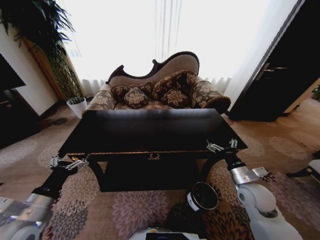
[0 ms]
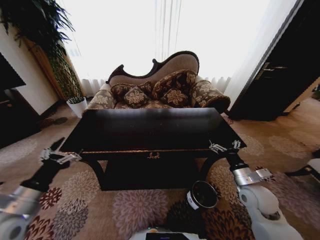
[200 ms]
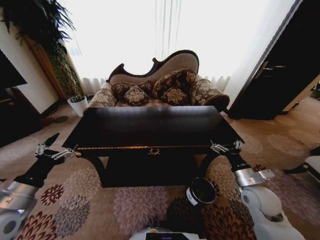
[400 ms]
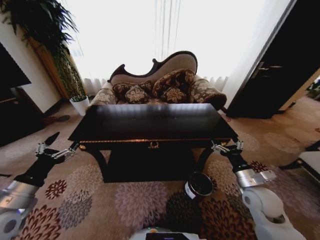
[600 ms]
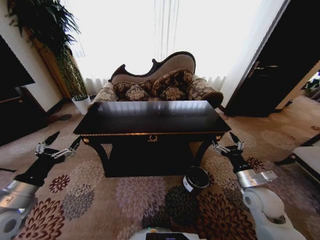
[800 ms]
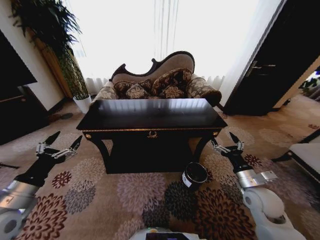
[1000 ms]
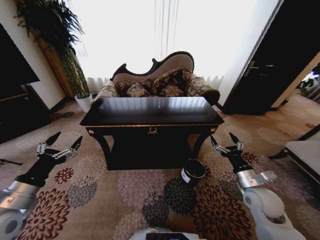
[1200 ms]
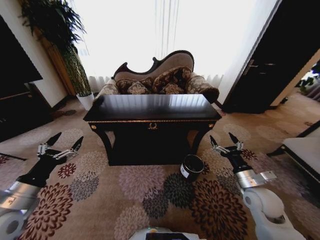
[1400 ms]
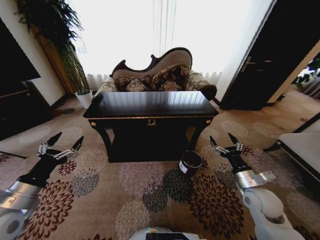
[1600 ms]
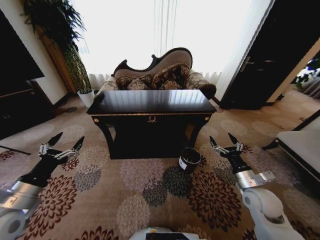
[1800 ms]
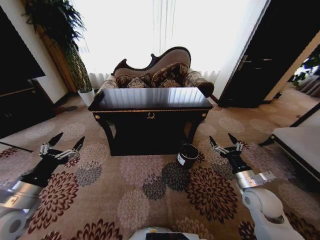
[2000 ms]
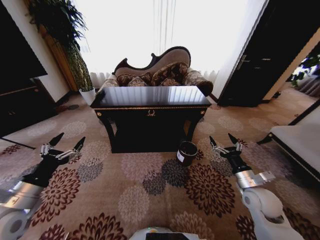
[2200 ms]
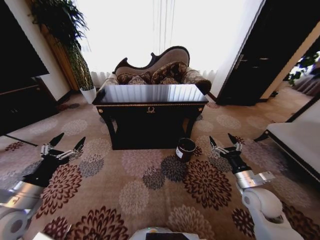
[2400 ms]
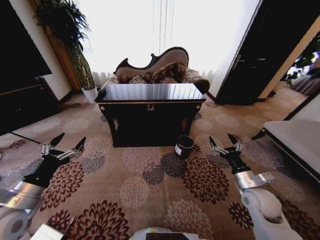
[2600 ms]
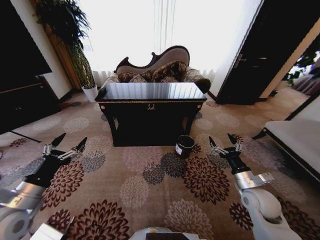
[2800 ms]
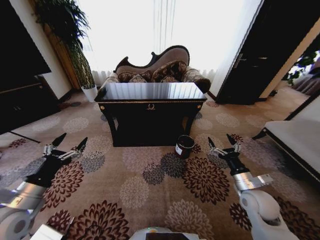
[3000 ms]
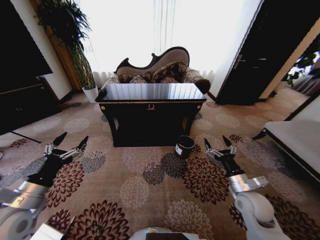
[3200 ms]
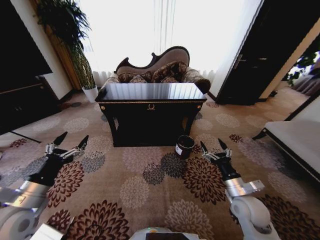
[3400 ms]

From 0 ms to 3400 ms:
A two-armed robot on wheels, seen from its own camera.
Task of the whole recording: Move to the front of the table and place the trash on the table into the trash bin.
From 0 ms to 1600 ms: The left gripper moves roughly 5 cm.
From 1600 ms to 3400 ms: The right gripper moves approximately 5 cm.

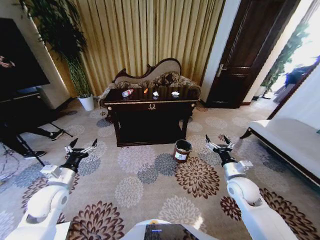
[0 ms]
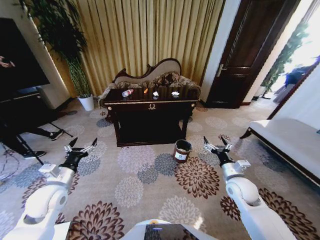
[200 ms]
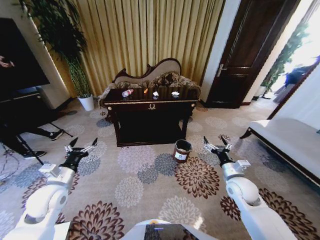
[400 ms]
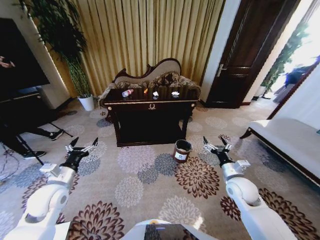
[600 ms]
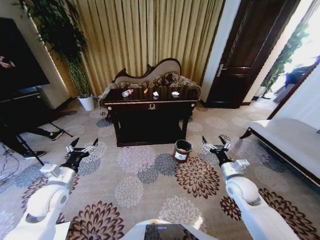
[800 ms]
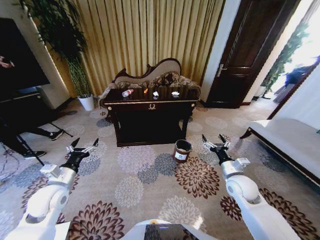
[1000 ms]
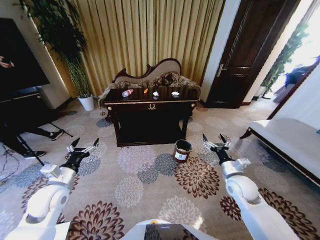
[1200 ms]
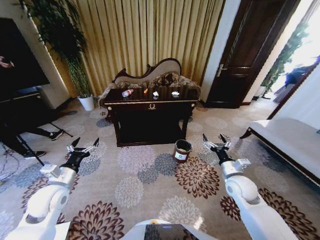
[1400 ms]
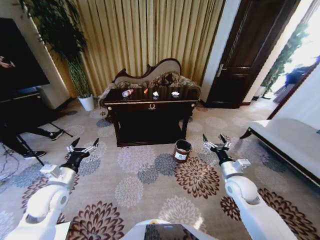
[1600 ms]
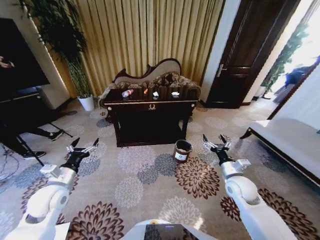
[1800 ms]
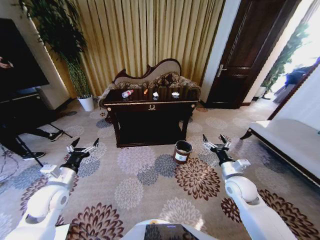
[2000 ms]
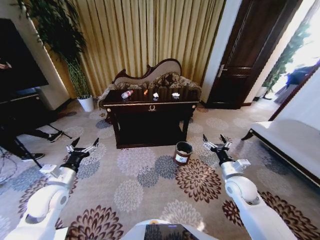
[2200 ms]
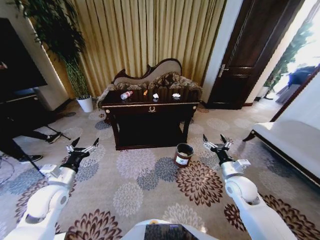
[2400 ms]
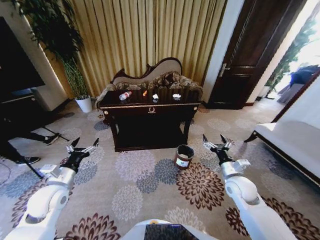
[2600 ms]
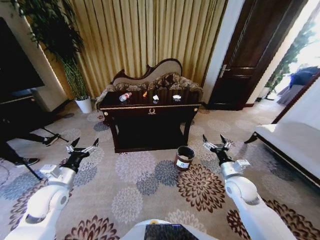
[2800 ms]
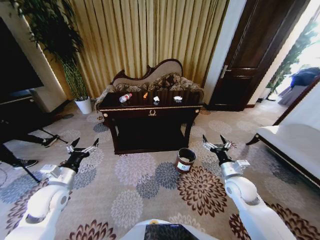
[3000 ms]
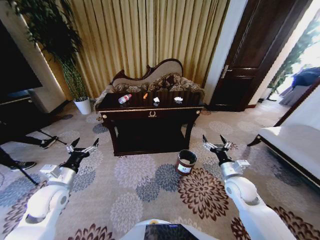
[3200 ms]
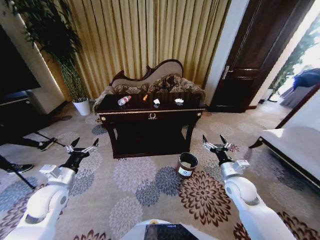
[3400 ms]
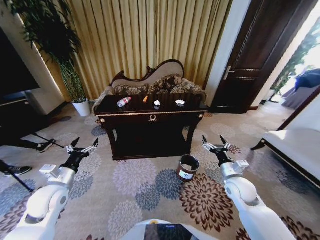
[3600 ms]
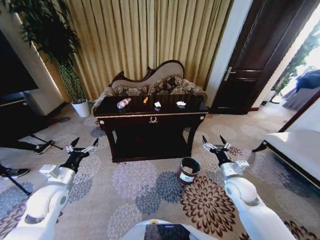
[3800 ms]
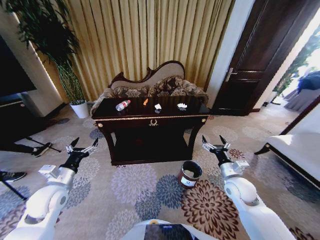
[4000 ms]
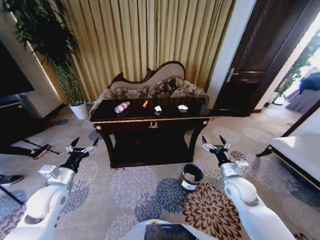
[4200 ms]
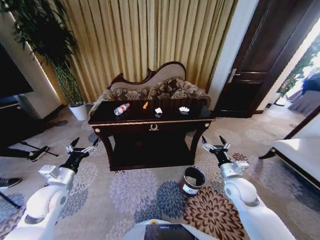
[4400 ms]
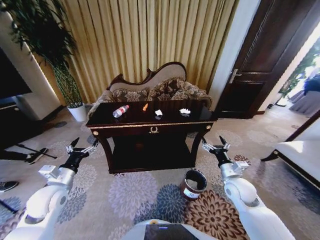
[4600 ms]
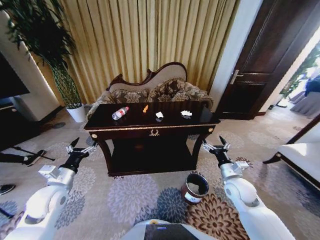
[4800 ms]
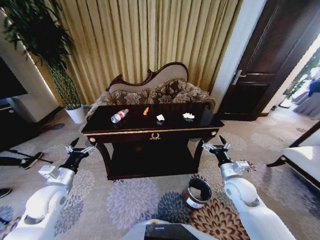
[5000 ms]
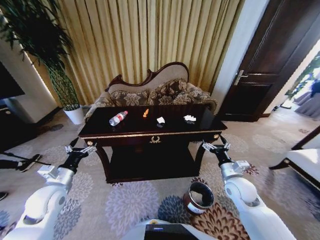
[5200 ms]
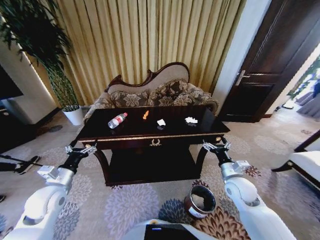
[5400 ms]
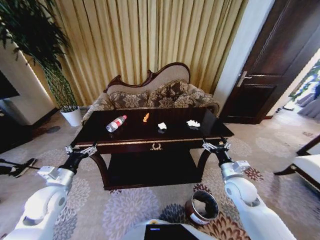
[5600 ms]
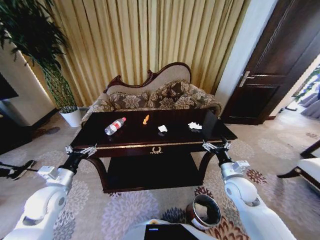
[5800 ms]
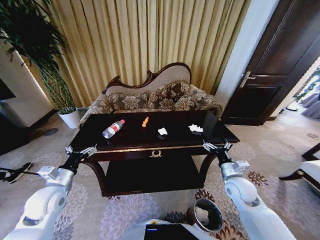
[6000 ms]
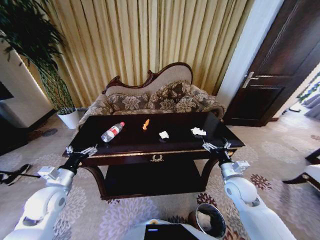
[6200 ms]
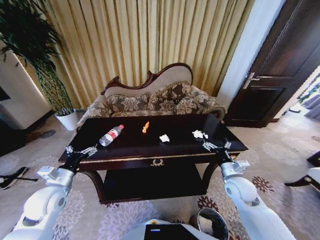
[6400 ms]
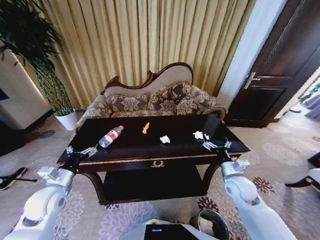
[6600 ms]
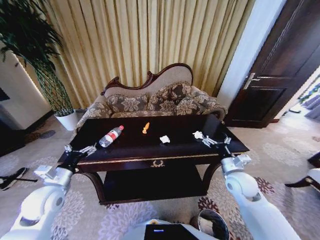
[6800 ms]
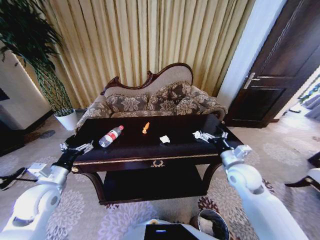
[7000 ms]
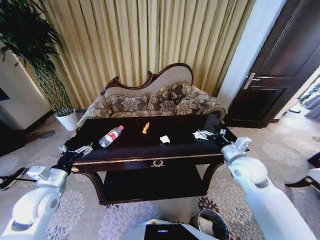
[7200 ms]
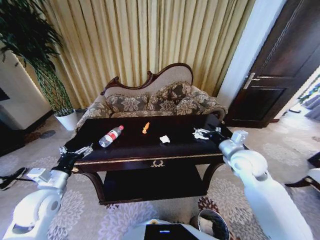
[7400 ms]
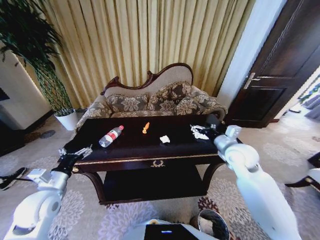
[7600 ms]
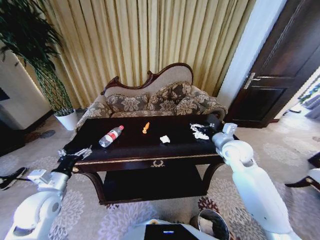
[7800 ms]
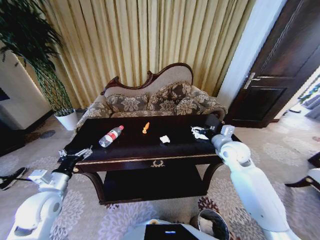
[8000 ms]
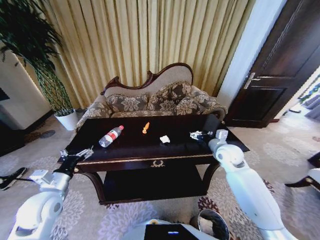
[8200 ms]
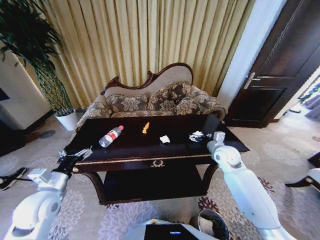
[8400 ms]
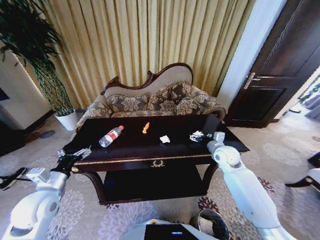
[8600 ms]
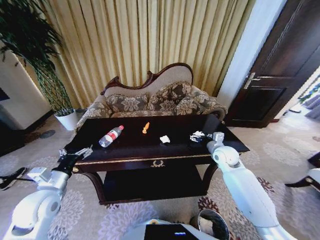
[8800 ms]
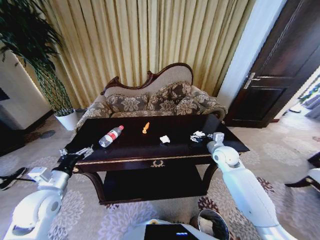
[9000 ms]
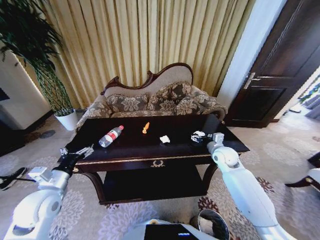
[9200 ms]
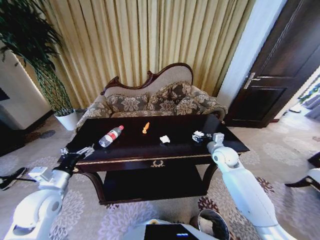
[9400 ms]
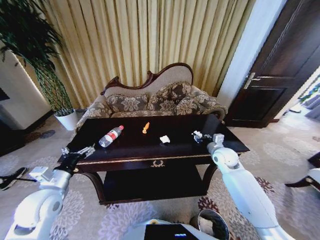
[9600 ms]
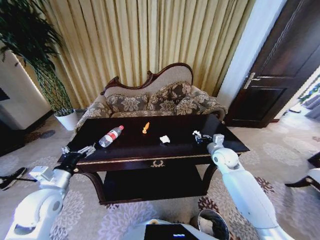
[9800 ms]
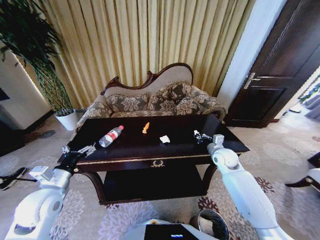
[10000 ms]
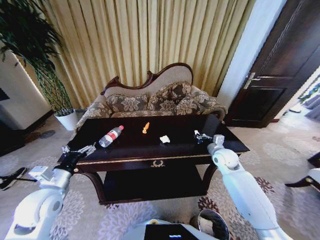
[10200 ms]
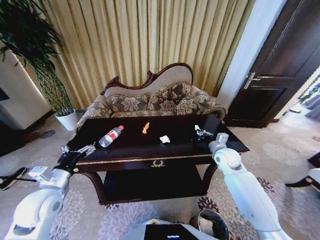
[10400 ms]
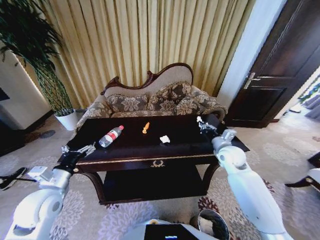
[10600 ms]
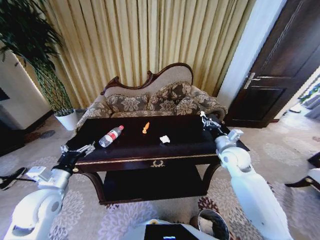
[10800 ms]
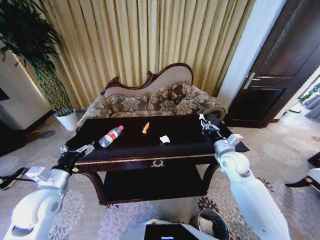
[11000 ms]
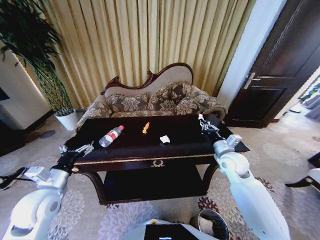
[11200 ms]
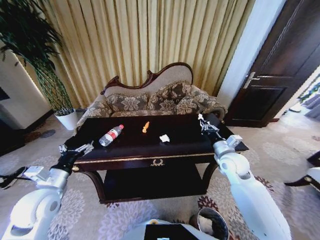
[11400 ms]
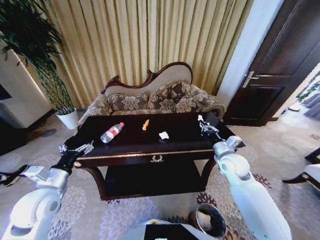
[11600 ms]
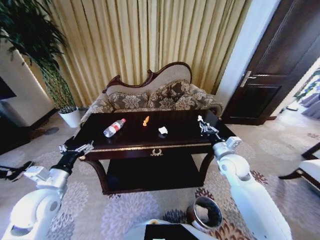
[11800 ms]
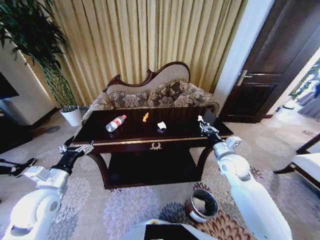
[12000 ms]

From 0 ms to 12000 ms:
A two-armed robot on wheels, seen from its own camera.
Task of the whole recording: Move to the front of the table and place the trash on the table into the trash bin.
From 6000 ms to 7600 ms: The right gripper moves upward and forward, about 15 cm.
From 7600 ms to 9000 ms: The right gripper is displaced downward and forward by some 10 cm.
From 9000 ms to 10400 ms: The right gripper closes up.
From 10400 ms to 12000 ms: The right gripper is displaced backward by about 5 cm.

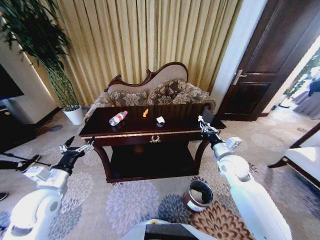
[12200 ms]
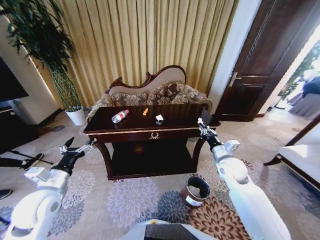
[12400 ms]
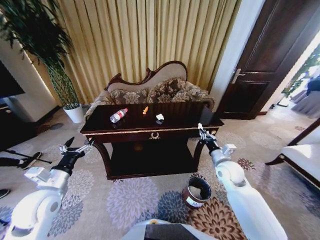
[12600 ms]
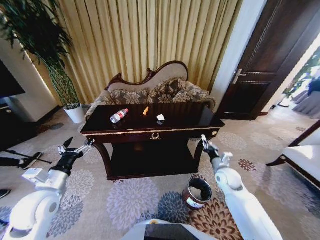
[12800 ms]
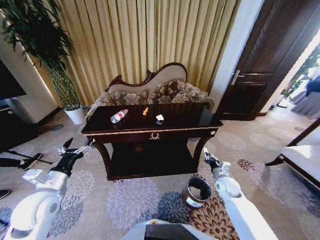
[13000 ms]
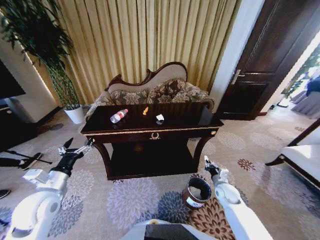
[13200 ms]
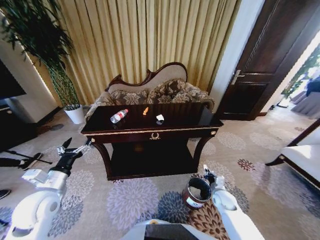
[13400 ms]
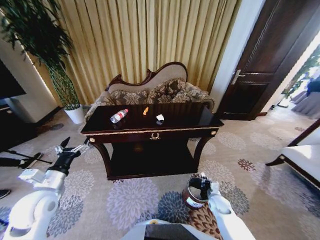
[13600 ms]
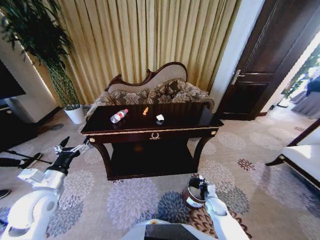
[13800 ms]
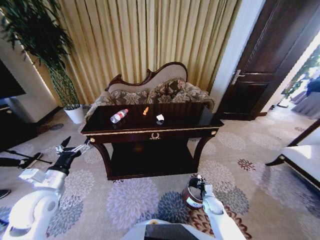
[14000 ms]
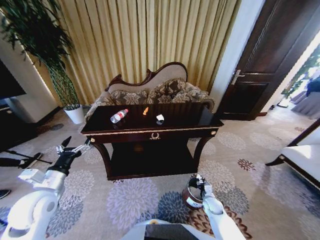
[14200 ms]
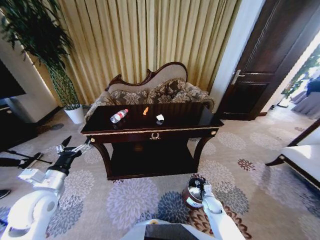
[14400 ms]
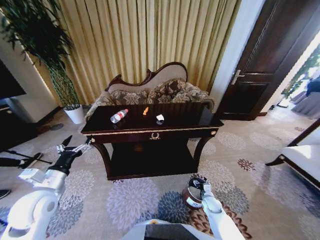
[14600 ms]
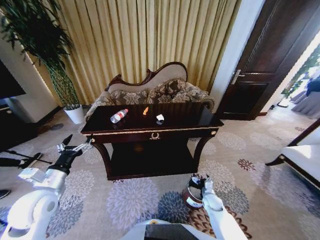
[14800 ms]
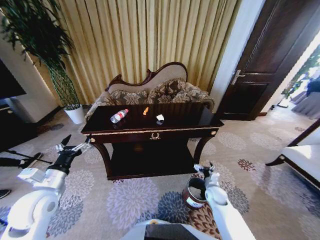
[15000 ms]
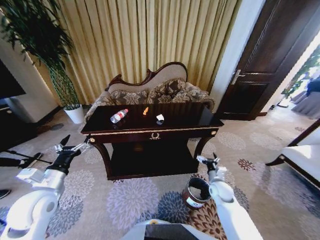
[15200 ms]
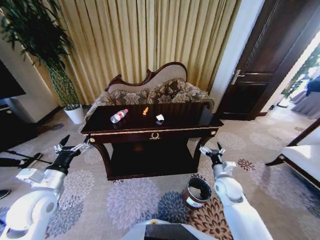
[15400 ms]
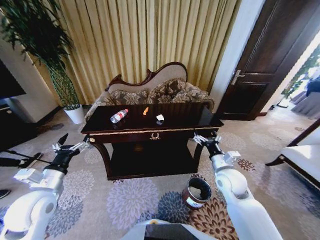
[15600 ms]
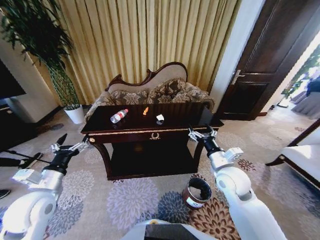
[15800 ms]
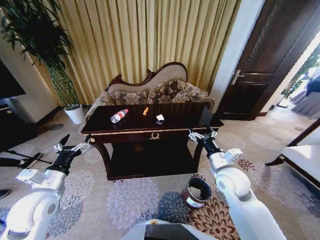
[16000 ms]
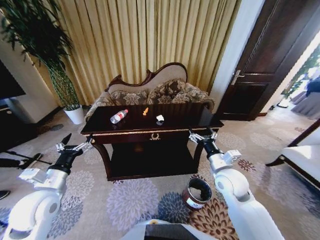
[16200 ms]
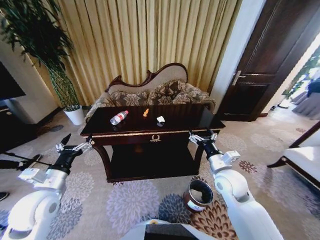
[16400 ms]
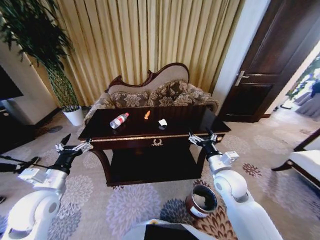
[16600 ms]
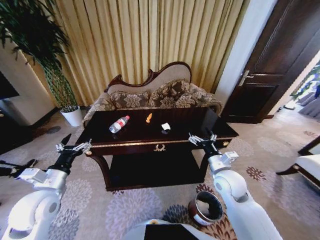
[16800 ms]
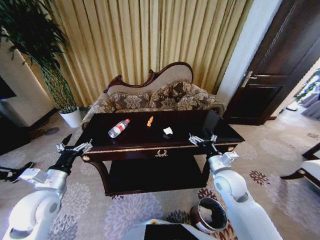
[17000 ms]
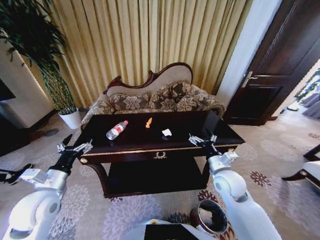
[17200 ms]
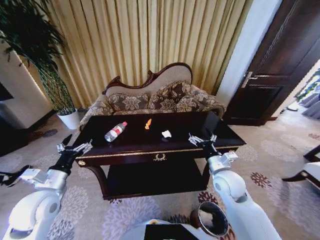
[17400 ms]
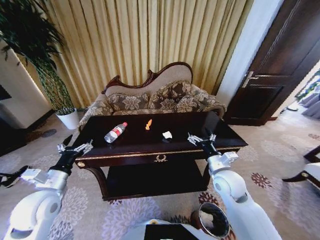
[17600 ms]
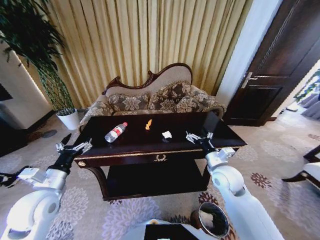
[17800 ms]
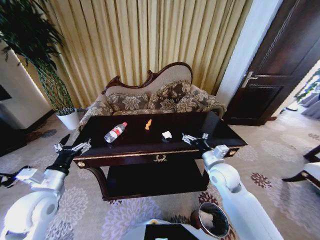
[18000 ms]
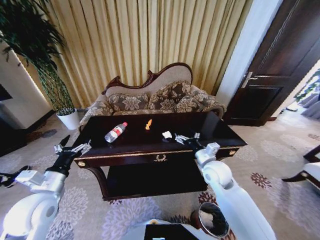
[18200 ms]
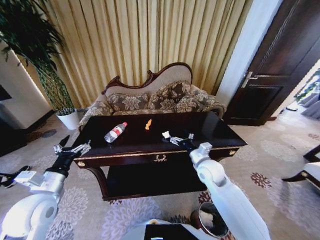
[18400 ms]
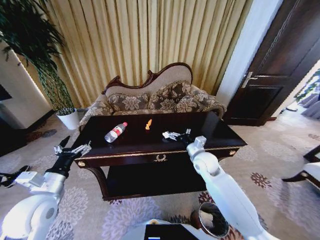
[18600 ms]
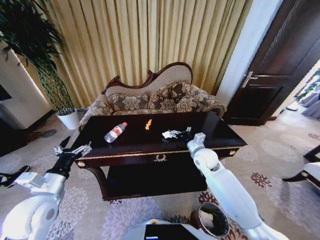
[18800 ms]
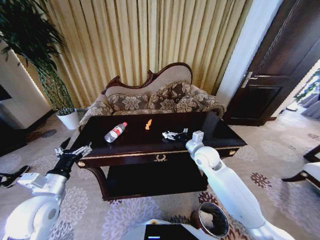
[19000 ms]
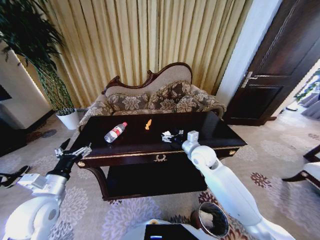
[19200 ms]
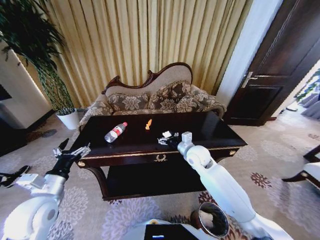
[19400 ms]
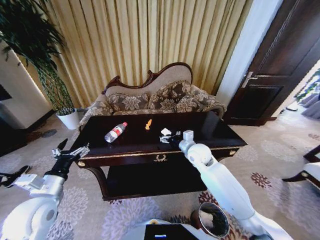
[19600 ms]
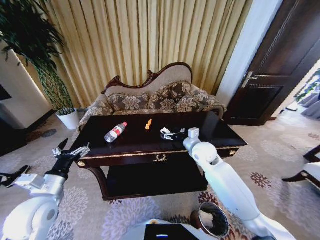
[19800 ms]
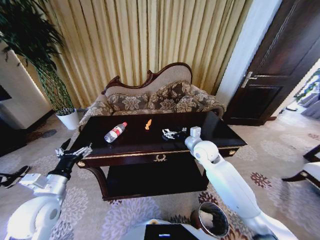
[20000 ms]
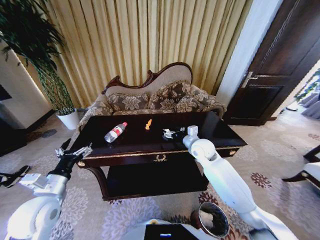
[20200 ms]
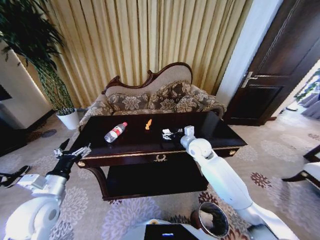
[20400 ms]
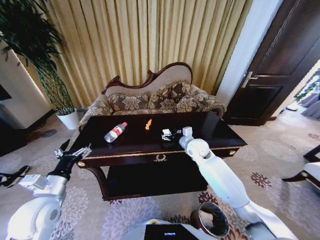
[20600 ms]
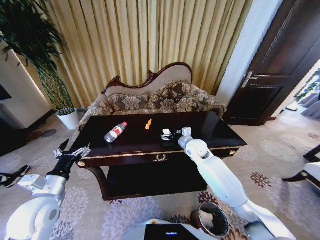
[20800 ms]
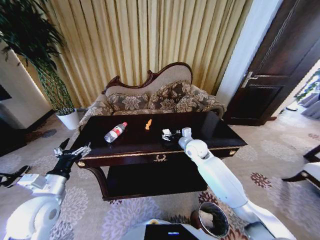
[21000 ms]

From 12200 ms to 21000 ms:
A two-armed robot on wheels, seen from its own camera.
Task of the whole recording: Move to the front of the table and place the trash on the table into the trash bin.
From 12200 ms to 13600 ms: The right gripper is displaced downward by about 25 cm.
From 13600 ms to 15200 ms: The right gripper travels upward by approximately 10 cm, and opens its fingers.
From 15200 ms to 16600 ms: The right gripper heads upward, covering roughly 15 cm.
From 18000 ms to 19600 ms: The right gripper shifts about 10 cm forward and to the left.
From 19600 ms to 21000 ms: The grippers move only a little.
